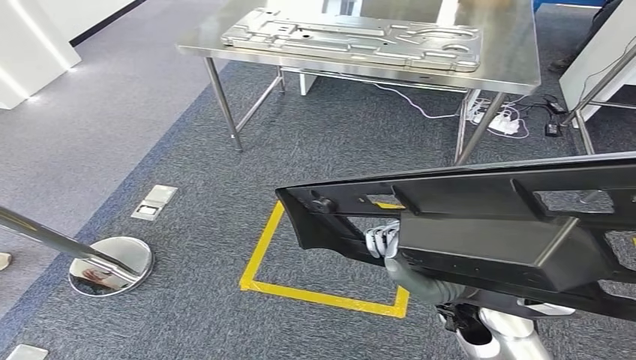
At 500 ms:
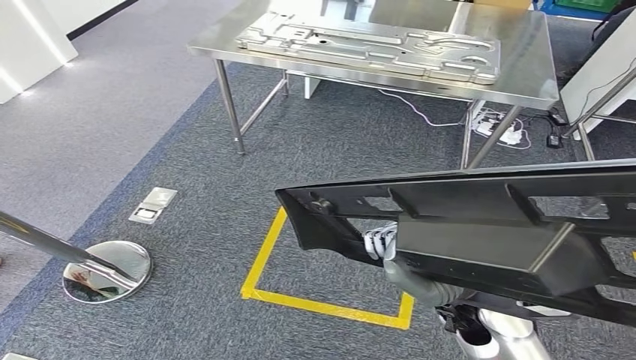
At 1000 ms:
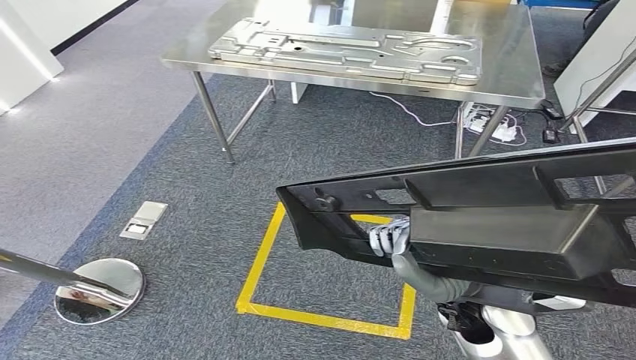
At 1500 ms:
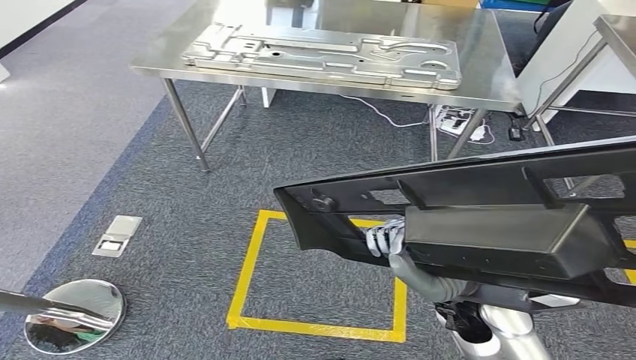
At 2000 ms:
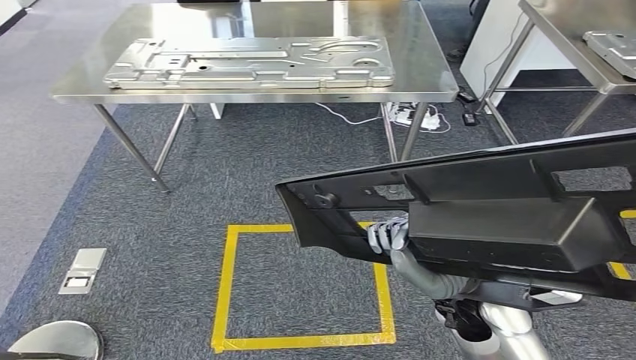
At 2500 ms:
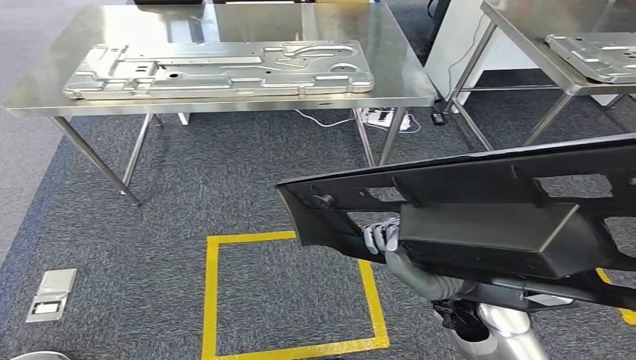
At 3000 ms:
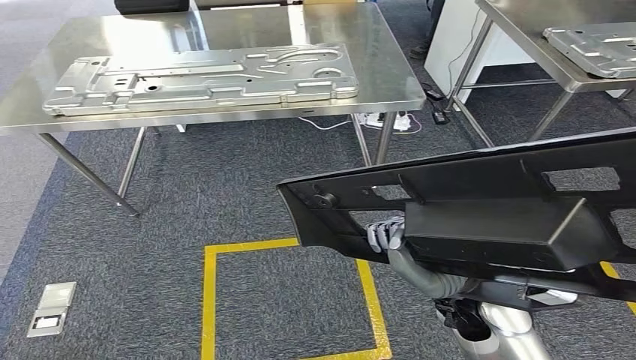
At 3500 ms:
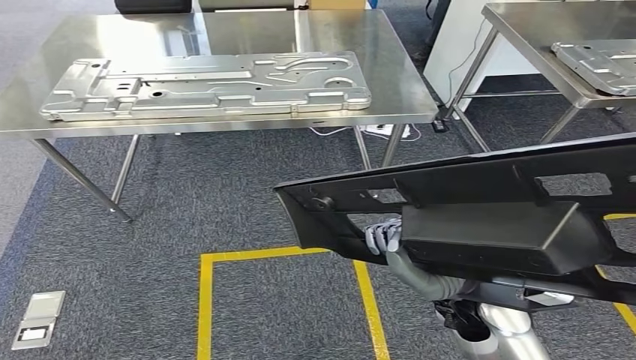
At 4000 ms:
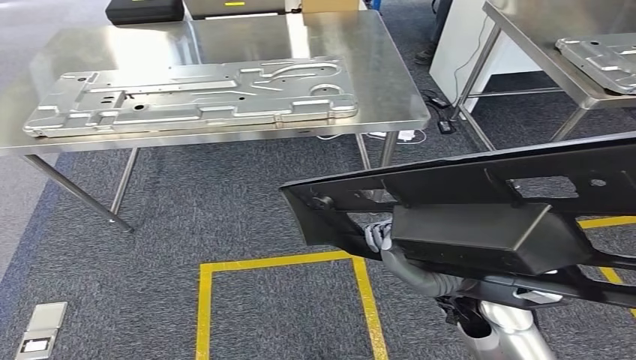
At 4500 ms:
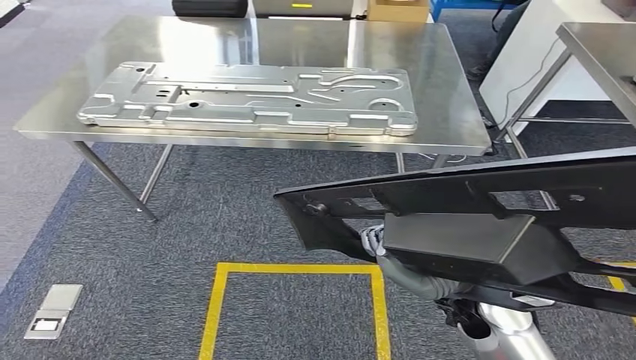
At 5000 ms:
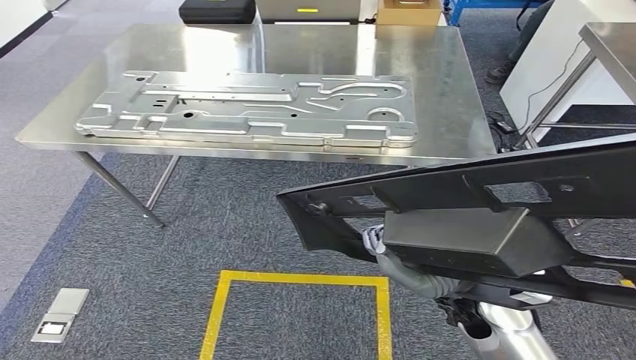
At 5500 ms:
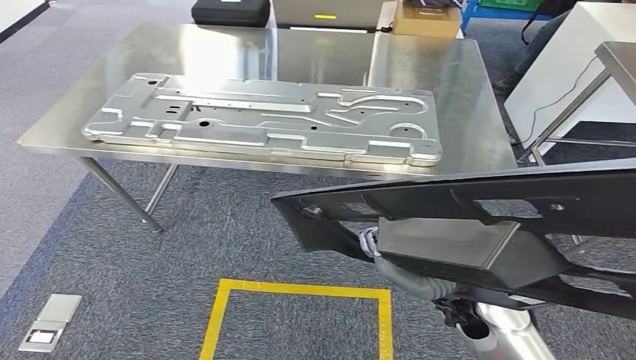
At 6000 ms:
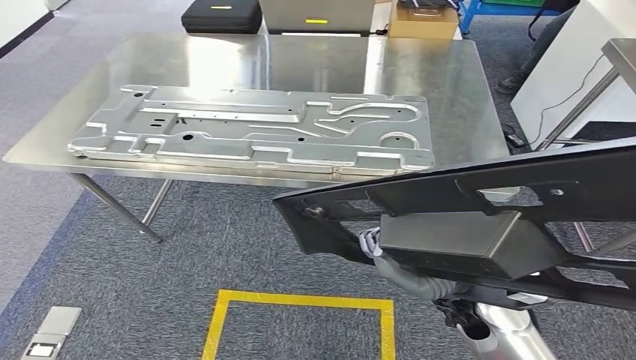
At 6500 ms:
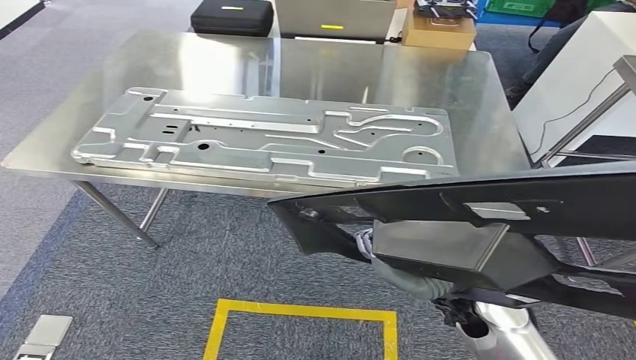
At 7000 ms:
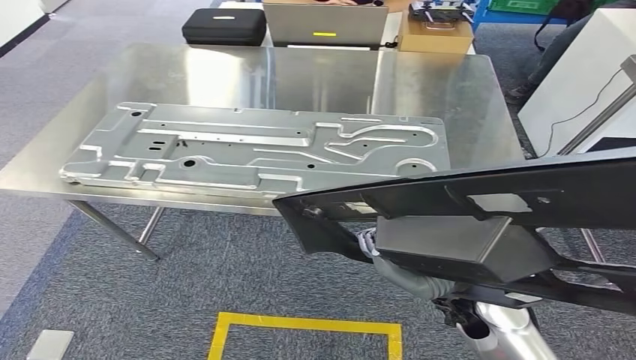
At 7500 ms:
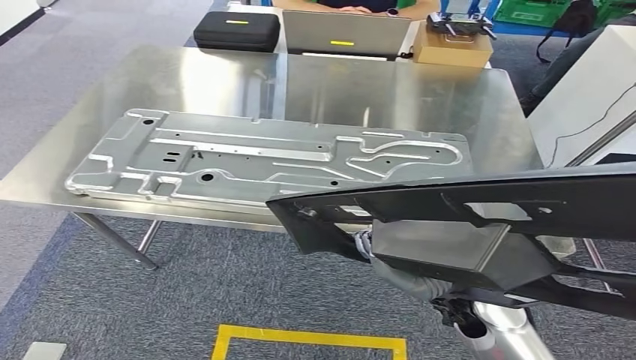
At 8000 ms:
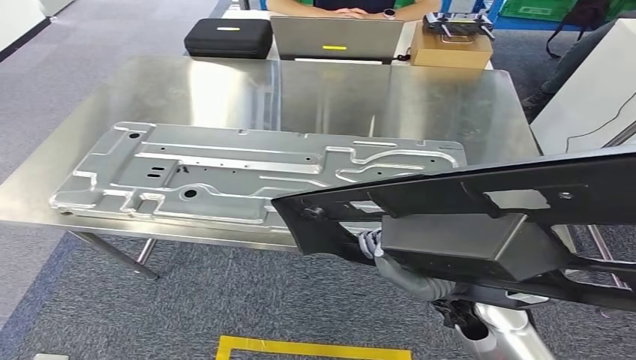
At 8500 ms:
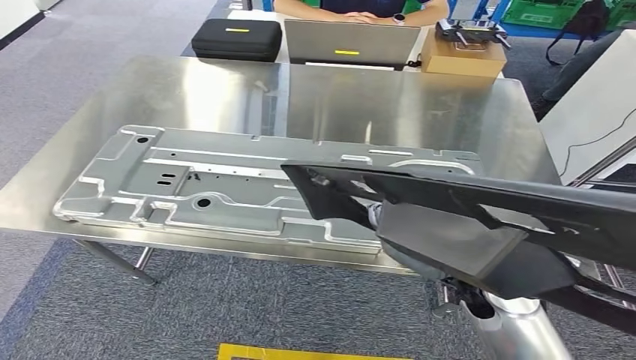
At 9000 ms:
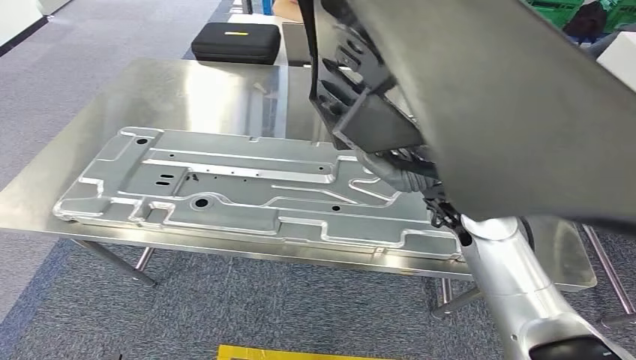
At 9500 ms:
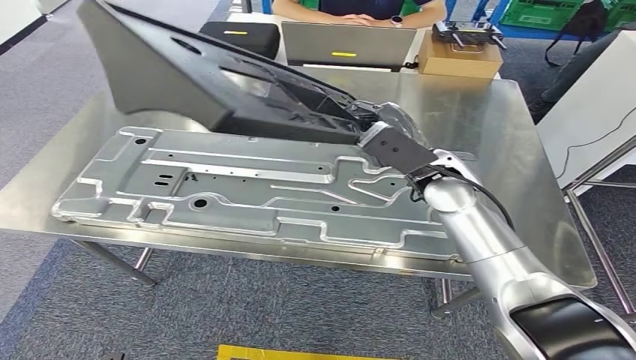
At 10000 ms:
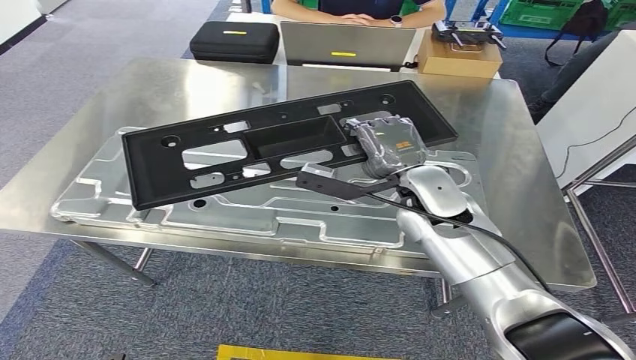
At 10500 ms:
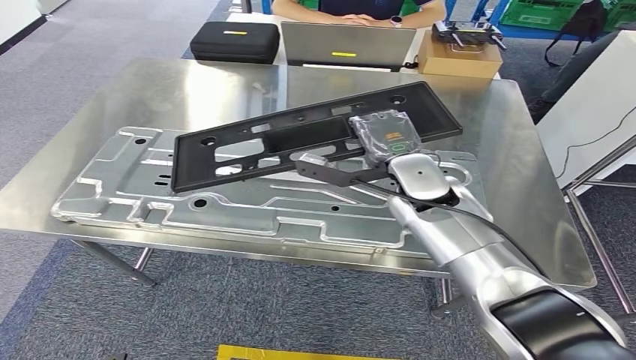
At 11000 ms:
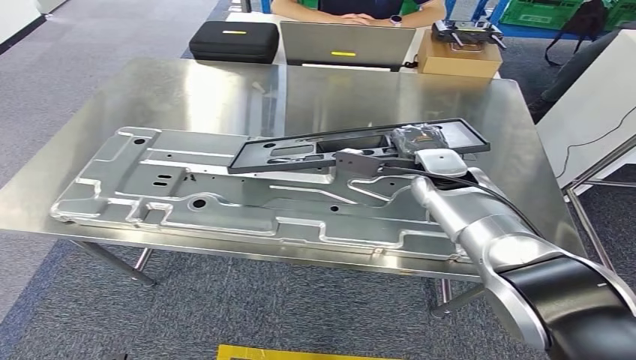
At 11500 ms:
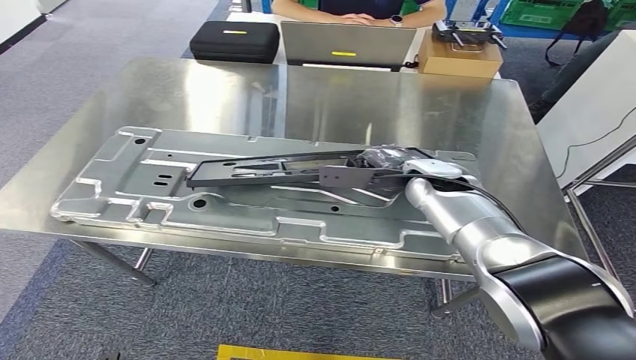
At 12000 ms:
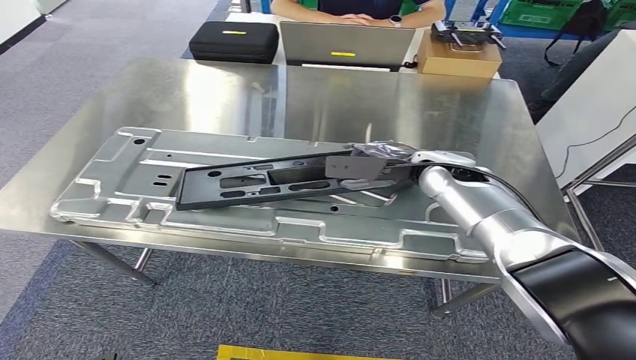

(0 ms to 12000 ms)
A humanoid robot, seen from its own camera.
Step, 0 ms - 9000 ms: Move the small component to the workbench.

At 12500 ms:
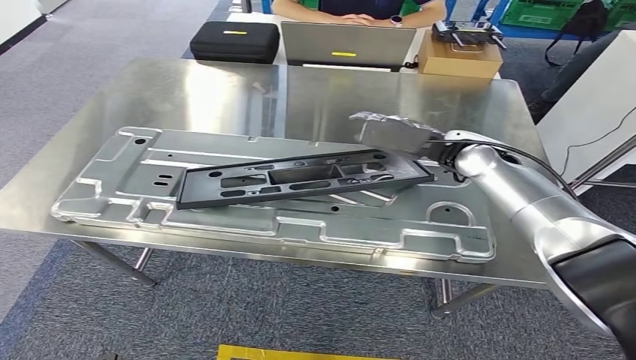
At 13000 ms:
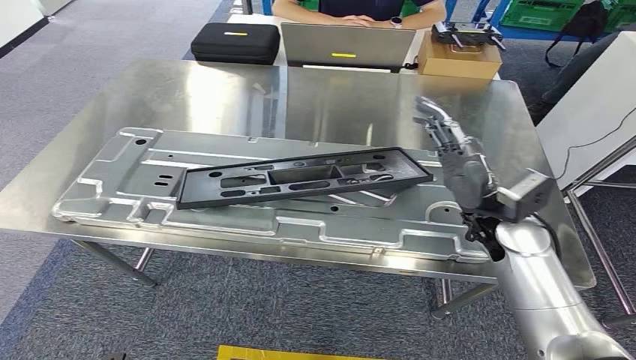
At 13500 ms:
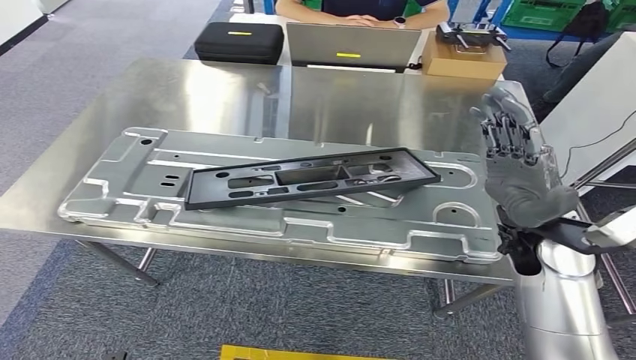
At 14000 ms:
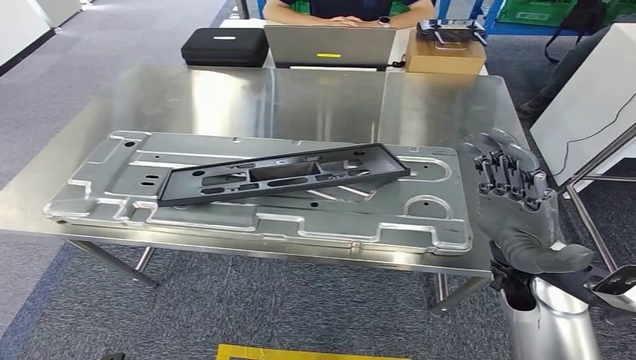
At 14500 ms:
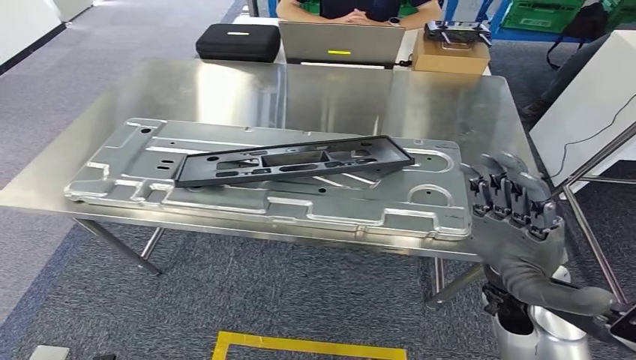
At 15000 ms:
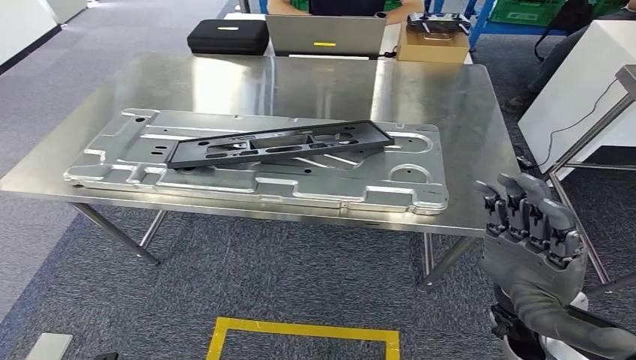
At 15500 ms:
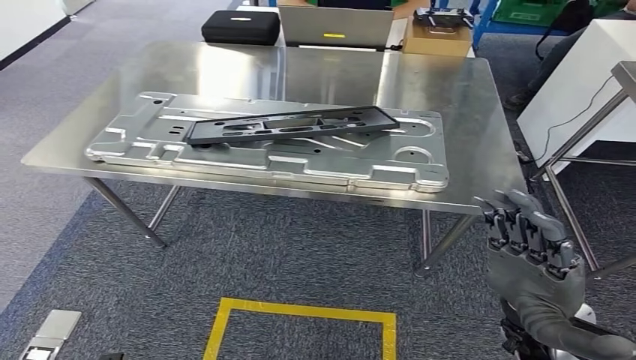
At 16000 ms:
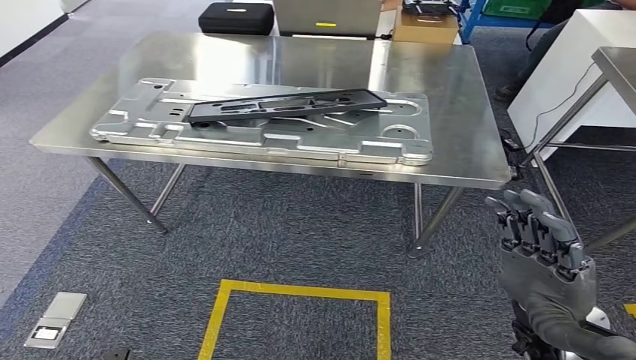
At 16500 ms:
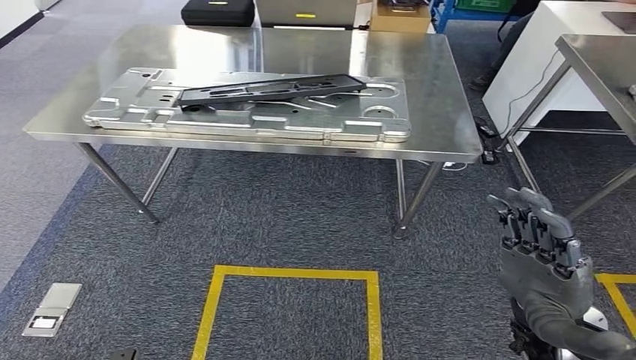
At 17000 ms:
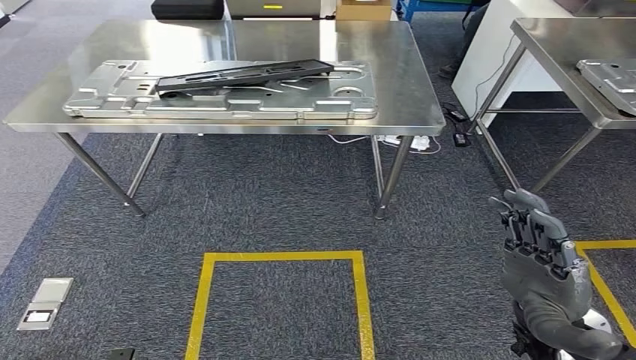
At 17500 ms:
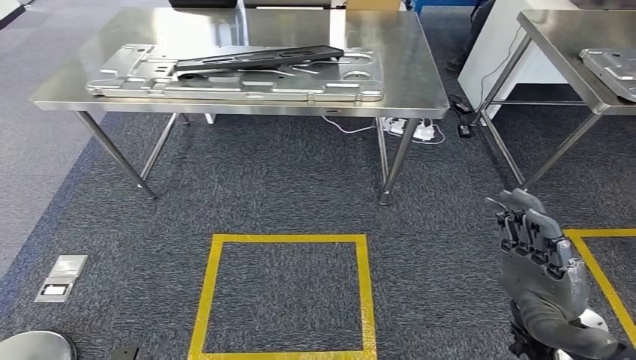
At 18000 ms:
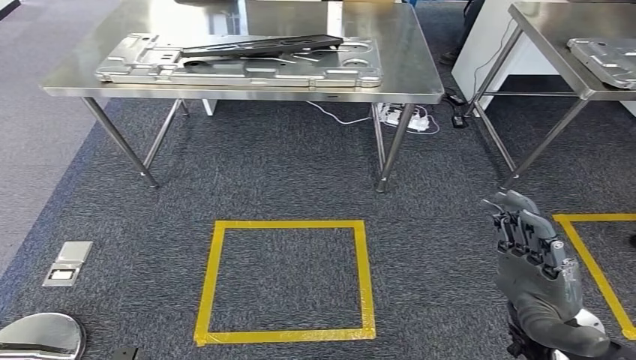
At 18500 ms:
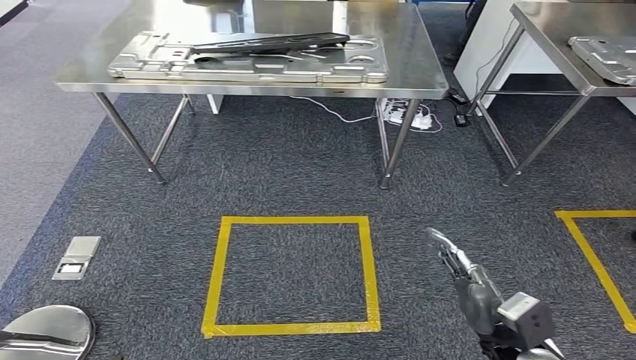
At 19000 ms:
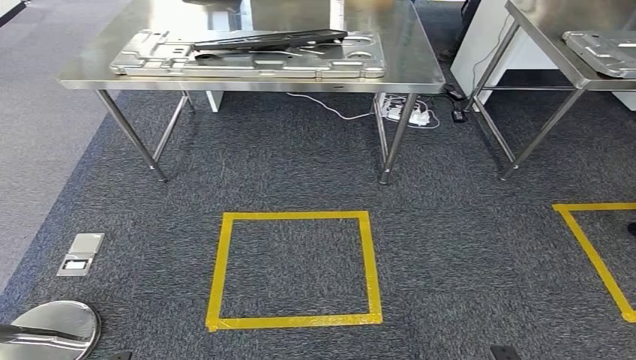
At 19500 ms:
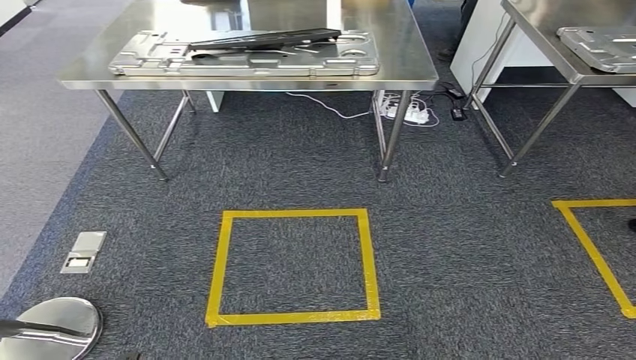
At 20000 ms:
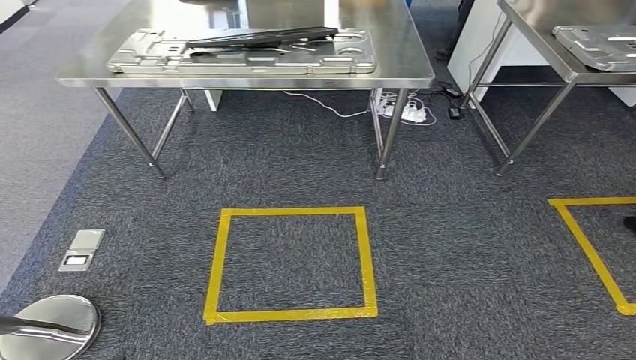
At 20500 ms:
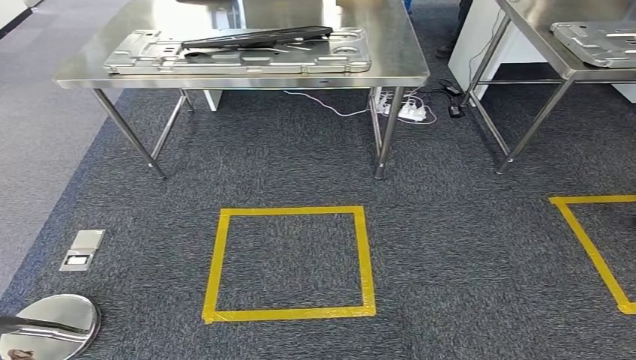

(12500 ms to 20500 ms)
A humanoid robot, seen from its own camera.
Step, 14500 ms - 20500 ms: Move to the initial position at the workbench.
